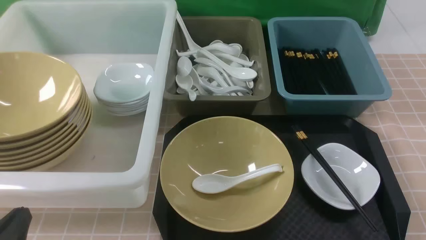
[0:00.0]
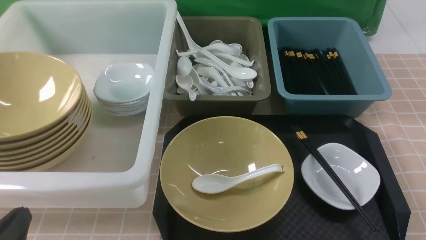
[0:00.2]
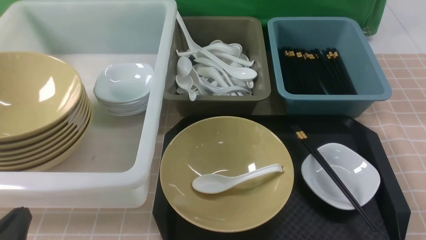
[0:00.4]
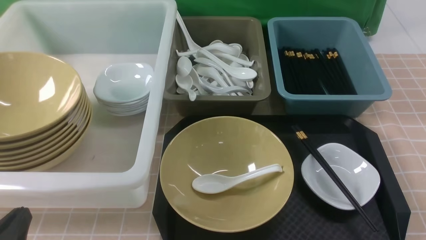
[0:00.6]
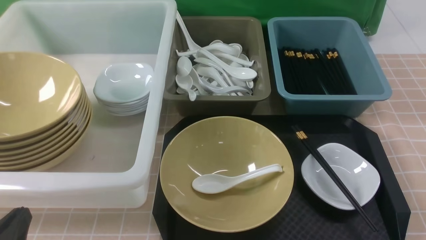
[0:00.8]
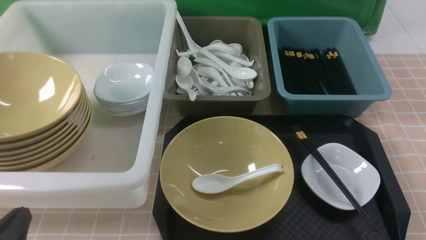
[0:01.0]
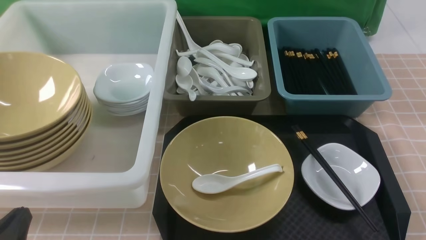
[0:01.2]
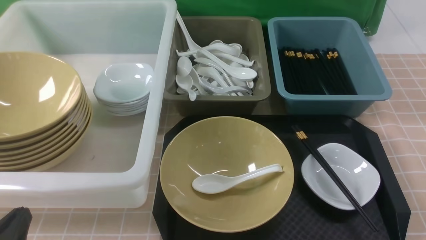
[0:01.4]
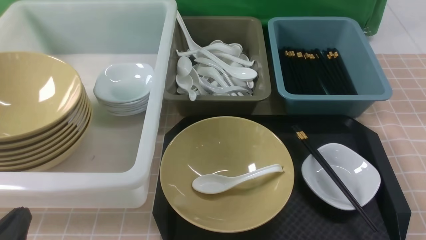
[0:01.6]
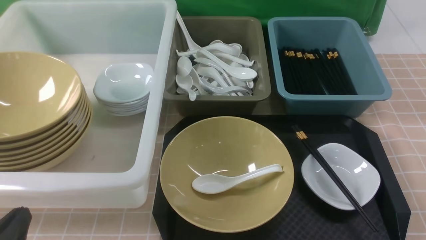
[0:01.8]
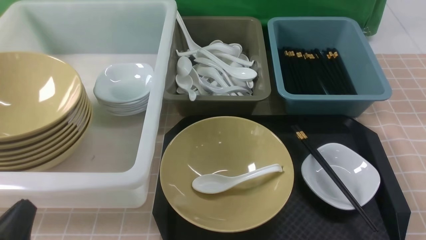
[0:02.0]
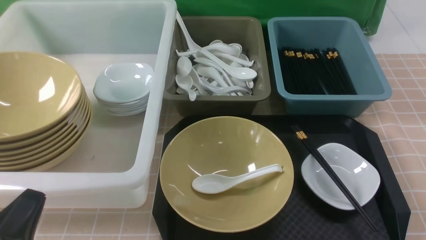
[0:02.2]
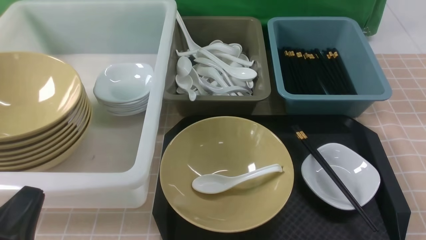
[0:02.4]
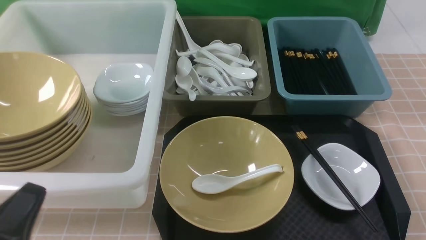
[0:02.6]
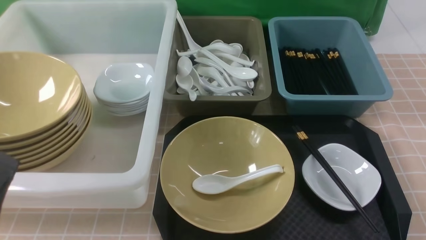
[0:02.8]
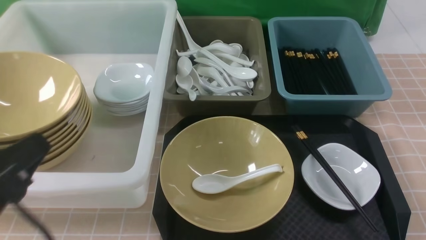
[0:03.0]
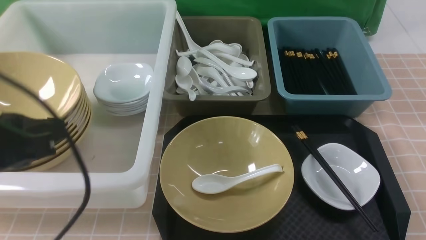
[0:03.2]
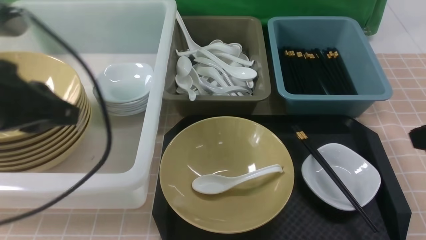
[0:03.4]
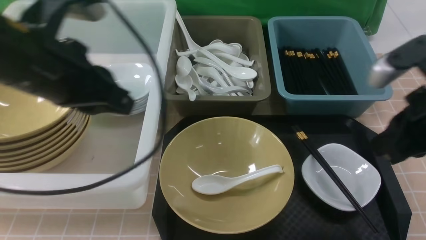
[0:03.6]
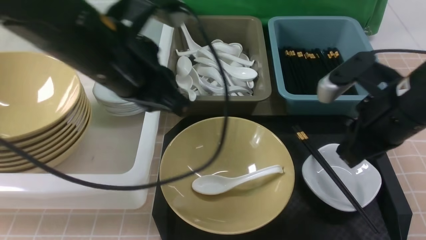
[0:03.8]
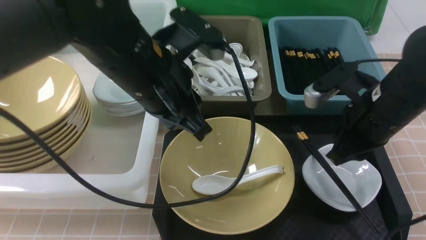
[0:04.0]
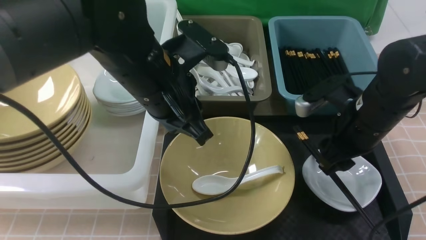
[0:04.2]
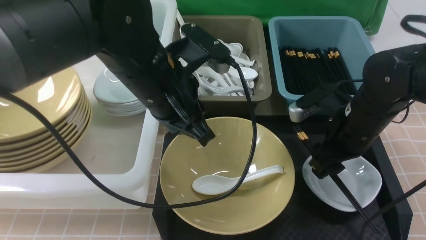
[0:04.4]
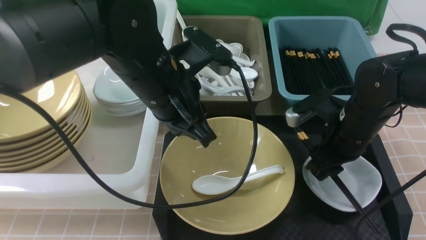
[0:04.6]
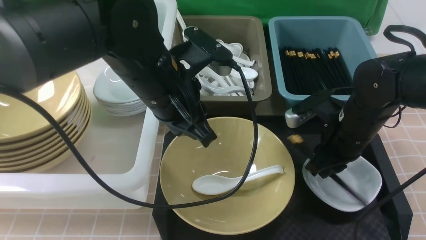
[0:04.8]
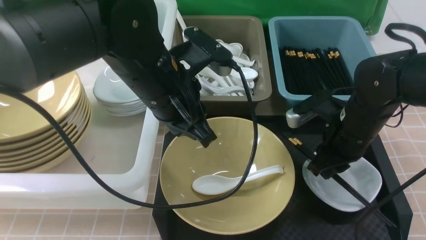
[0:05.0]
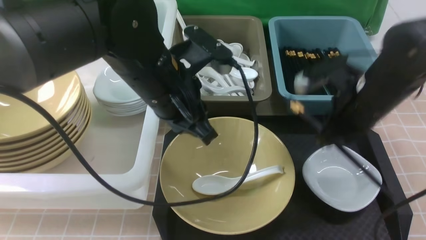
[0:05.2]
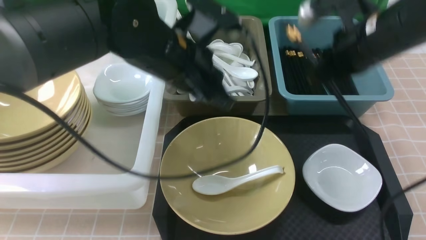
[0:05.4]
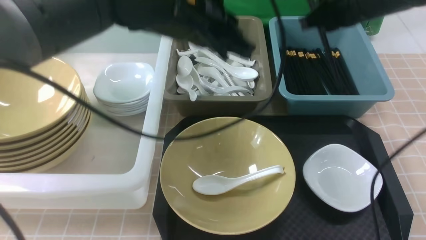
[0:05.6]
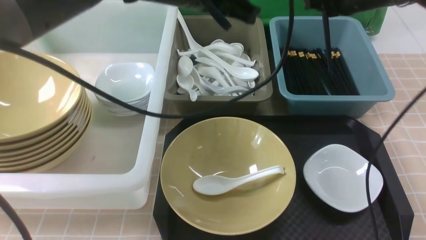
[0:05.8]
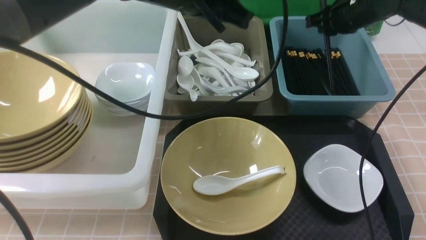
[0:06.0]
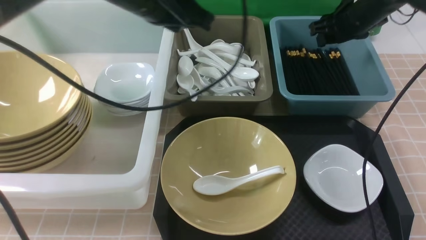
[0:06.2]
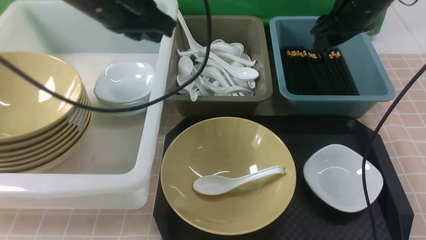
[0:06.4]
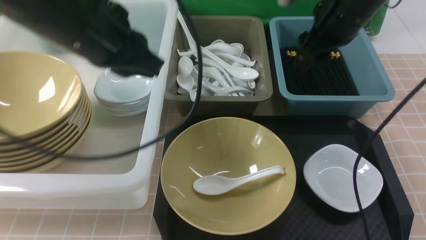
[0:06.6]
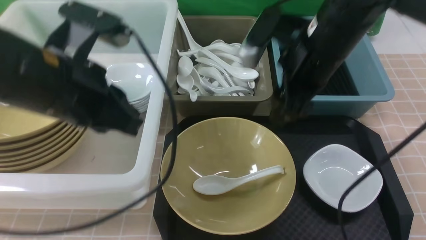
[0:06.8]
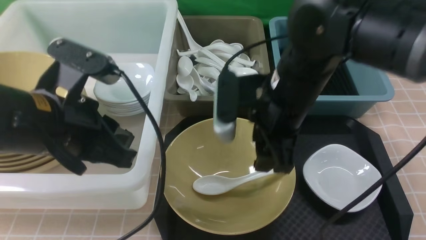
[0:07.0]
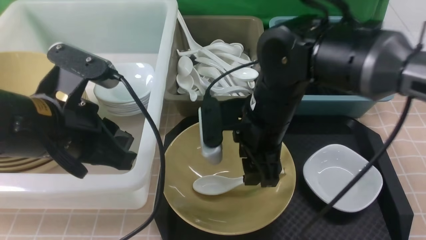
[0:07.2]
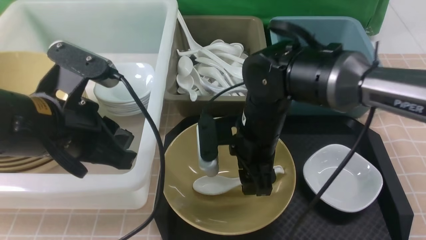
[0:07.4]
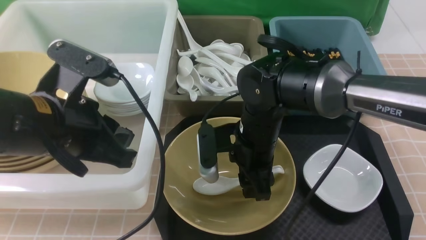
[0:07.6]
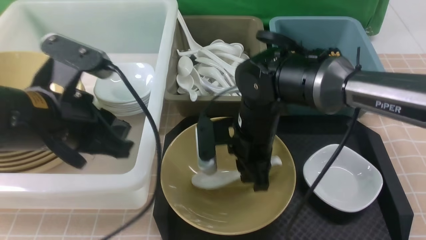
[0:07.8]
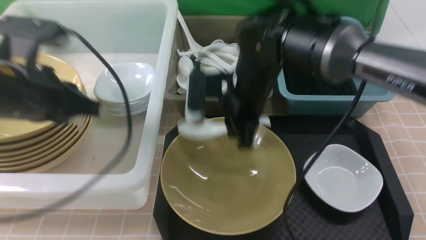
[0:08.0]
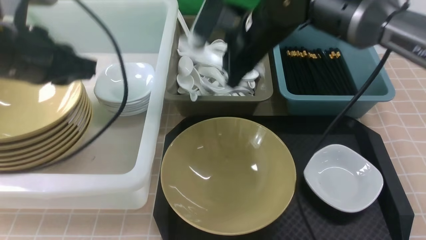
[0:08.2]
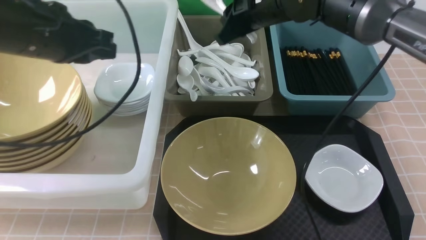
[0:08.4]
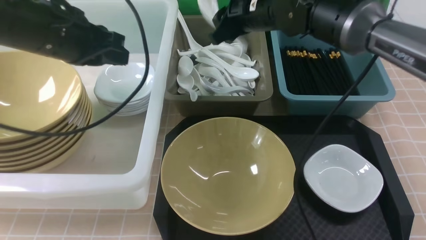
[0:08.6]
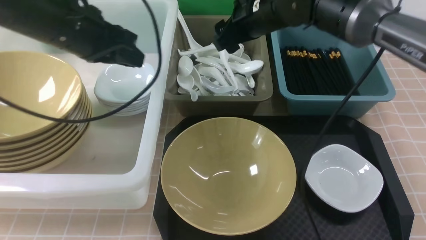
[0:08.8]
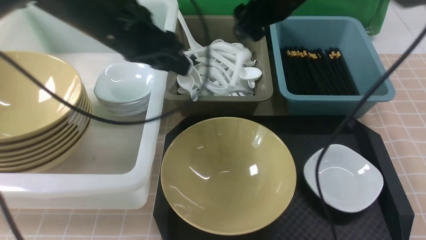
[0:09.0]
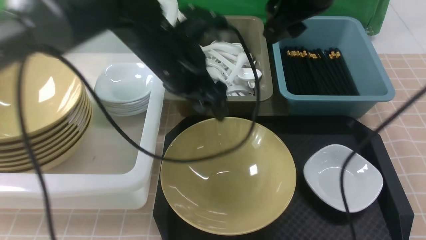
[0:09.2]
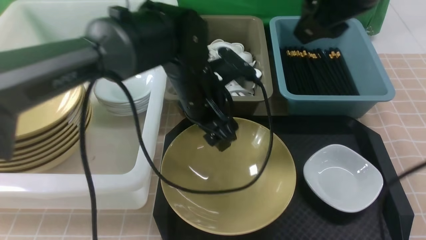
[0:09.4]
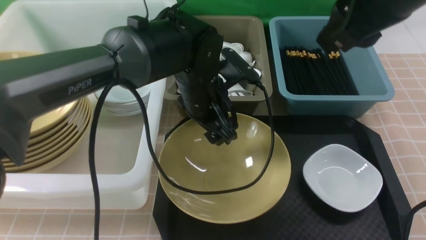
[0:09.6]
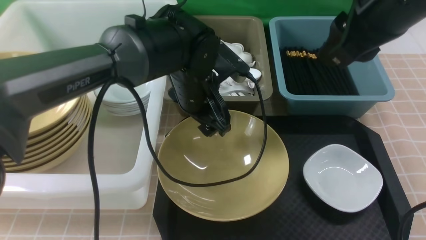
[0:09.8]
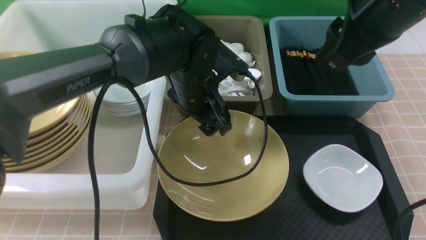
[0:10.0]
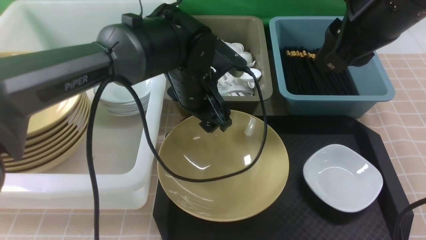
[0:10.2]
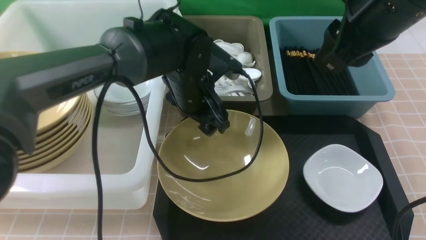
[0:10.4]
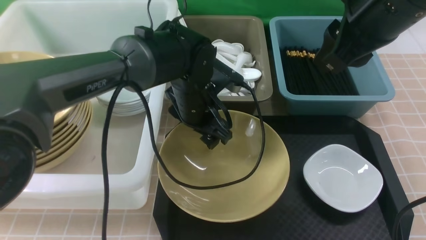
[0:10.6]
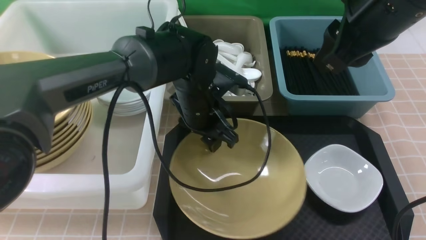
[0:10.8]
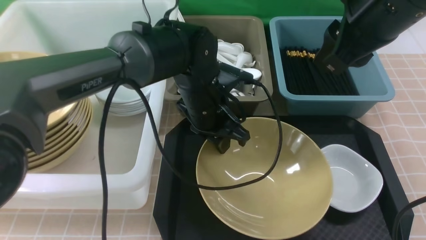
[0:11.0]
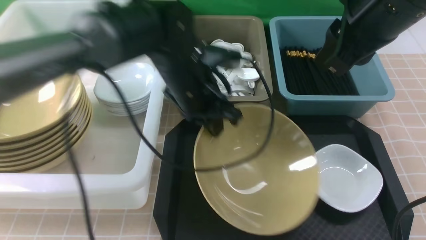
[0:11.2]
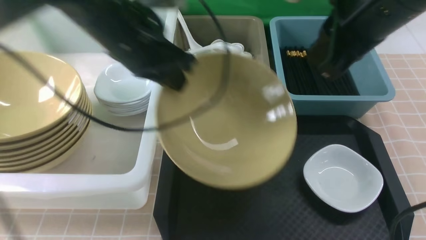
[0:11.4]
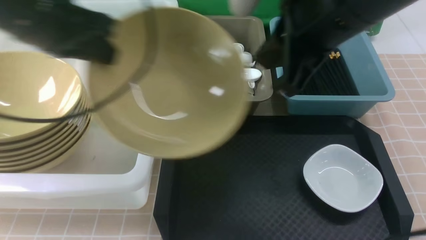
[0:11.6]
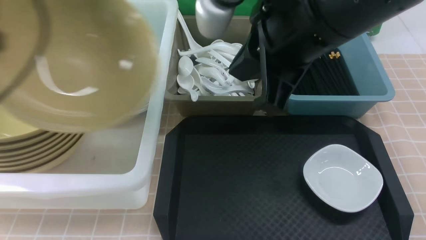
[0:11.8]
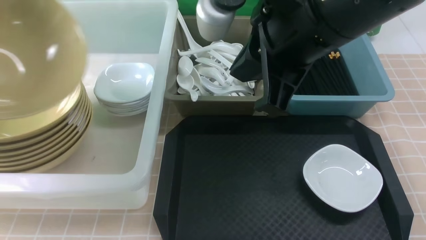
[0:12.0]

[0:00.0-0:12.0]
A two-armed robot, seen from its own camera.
Task of the whole recording: on brown table put chopsticks spoon bowls plates into blue grey white boxes.
Step, 0:00.0 to 0:05.2: use the right arm to grab the chopsticks.
Step, 0:05.6 to 0:06.4: use the right arm to put the chopsticks into the small storage box on the right.
Step, 0:06.6 to 0:07.8: use the right arm to grab the soup spoon in the middle.
Step, 0:08.0 to 0:08.8: use the right arm to put the soup spoon into the small storage box in the middle.
Step, 0:09.0 to 0:11.4: use the left arm to grab the yellow noodle bowl on the left.
0:00.0 to 0:01.6: The two grippers keep their place.
0:01.6 to 0:03.0: The left gripper shifts some 15 cm upward.
0:03.0 to 0:04.4: The right gripper moves forward and to the left, about 25 cm, and opens its fingers. Meanwhile the left gripper moves forward and to the right, about 25 cm.
0:04.4 to 0:06.0: The left gripper shifts roughly 10 cm upward and forward. Meanwhile the right gripper travels forward and upward by roughly 20 cm, and closes.
0:06.0 to 0:07.6: The left gripper is displaced backward, to the left and downward by some 20 cm; the right gripper travels to the left, backward and downward by some 25 cm.
0:07.6 to 0:09.0: The left gripper heads forward and to the right, covering roughly 15 cm, and opens its fingers. Meanwhile the right gripper is displaced upward and forward by some 20 cm, and closes, then opens again.
0:09.0 to 0:10.4: The right gripper heads backward and to the right, covering some 15 cm, and closes. The left gripper is displaced downward and to the right by approximately 15 cm.
0:10.4 to 0:12.0: The left gripper moves to the left, upward and backward, some 40 cm, and closes its fingers. Meanwhile the right gripper travels to the left by approximately 10 cm, and closes up.

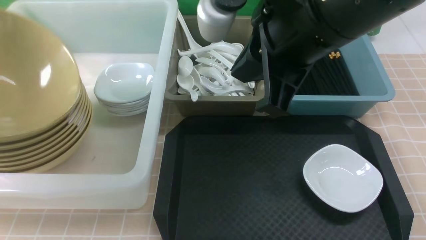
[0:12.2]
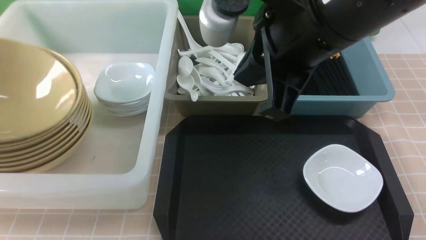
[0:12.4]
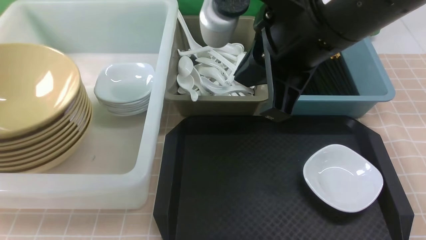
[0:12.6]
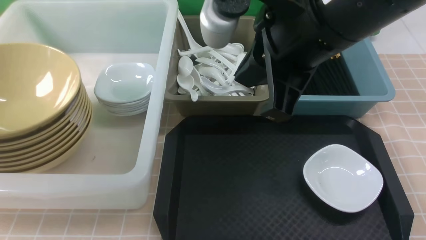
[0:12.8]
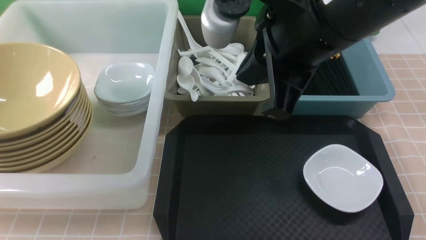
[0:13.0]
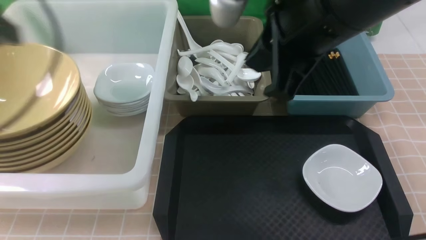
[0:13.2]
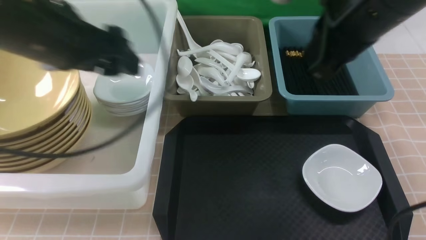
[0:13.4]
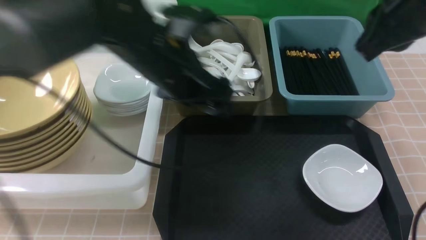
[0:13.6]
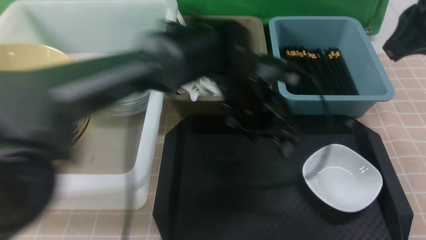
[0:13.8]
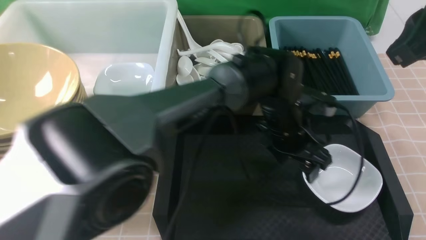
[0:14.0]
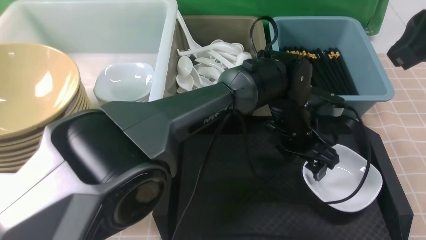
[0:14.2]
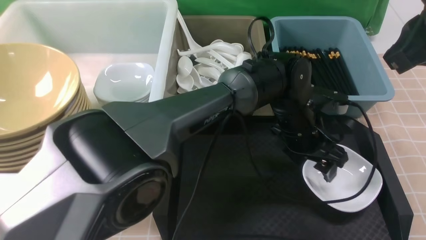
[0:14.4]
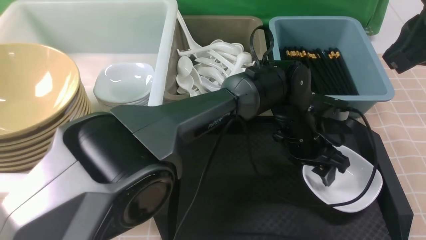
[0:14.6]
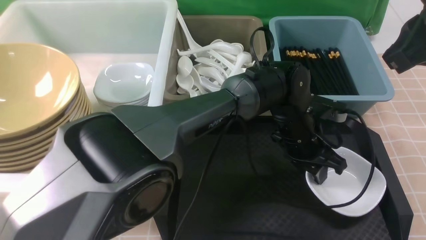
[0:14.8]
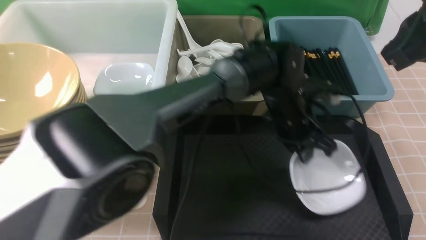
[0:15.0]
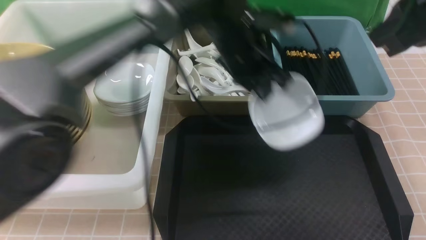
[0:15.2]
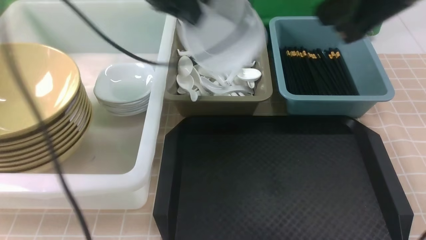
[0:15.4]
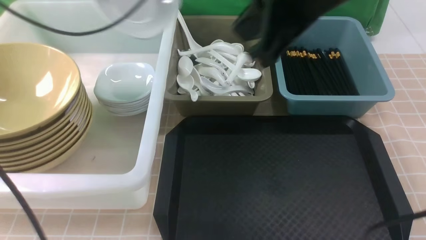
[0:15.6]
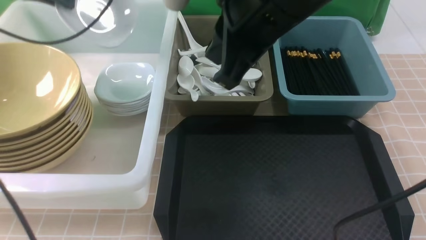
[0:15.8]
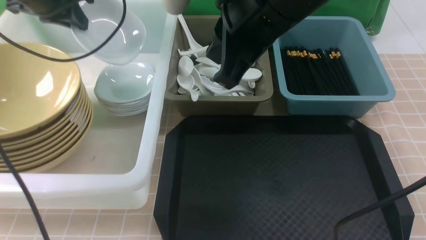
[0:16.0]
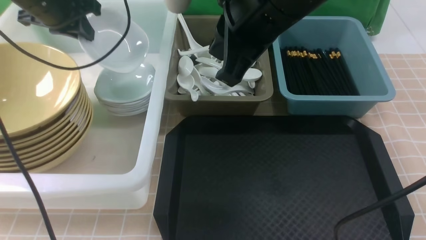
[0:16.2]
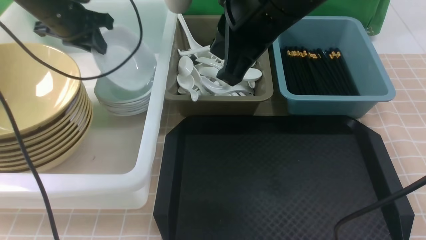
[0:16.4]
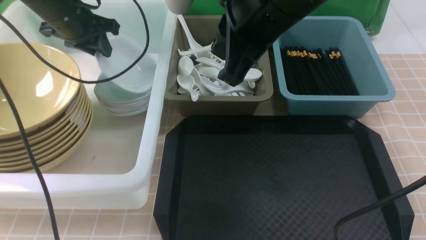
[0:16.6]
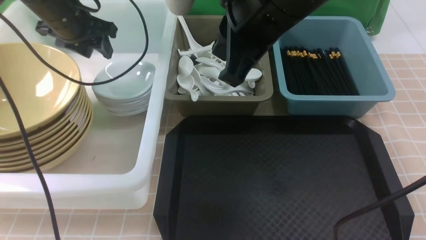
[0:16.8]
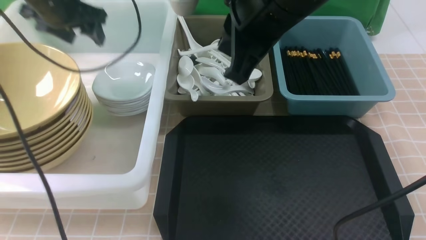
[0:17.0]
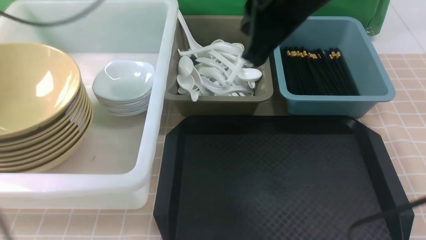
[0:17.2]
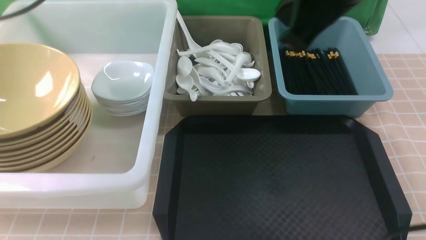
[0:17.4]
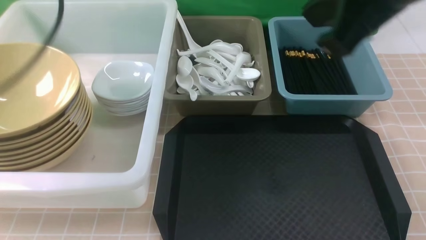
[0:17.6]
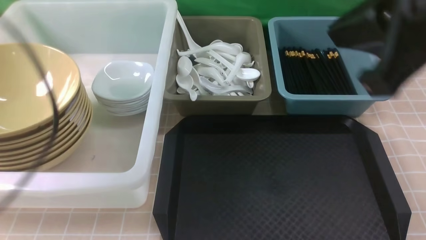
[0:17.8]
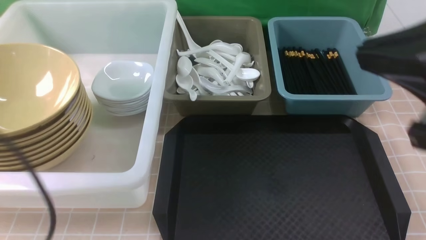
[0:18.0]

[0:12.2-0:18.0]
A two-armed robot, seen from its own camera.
Task of the whole recording: on brown table put chopsticks spoon bowls plates into blue grey white boxes.
Step, 0:12.8 to 0:15.0: use the left arm to grab the plate.
Step, 0:15.2 to 0:17.2: use the left arm to put the plate into the large storage box on the left.
0:12.2 to 0:13.6: The right gripper moves to the right, about 10 cm. Meanwhile the left gripper is displaced to the right by roughly 35 cm, and opens.
0:13.6 to 0:15.0: The left gripper goes some 15 cm to the right and downward, and closes.
0:15.0 to 0:16.6: The right gripper heads to the left, covering roughly 15 cm, while the left gripper goes about 35 cm to the left.
0:16.6 to 0:18.0: The left gripper is displaced backward by roughly 35 cm, and closes its fingers; the right gripper heads to the right and backward, covering approximately 20 cm.
